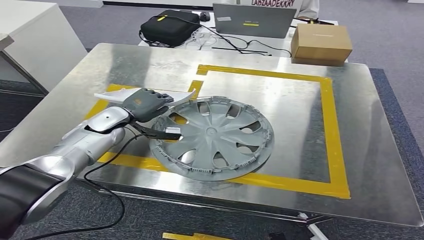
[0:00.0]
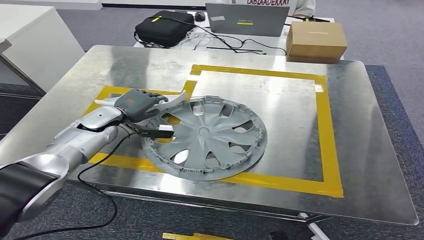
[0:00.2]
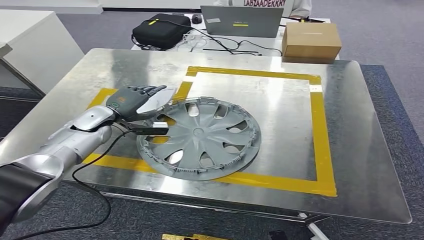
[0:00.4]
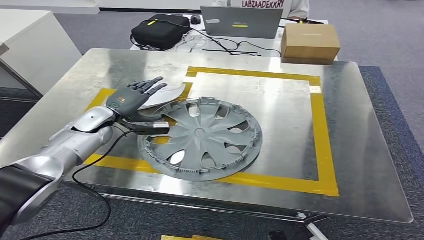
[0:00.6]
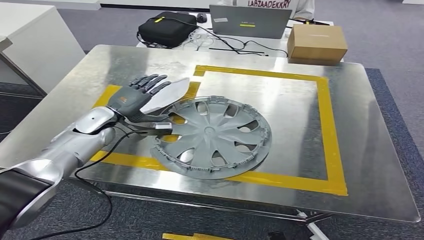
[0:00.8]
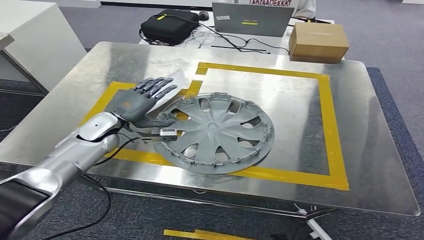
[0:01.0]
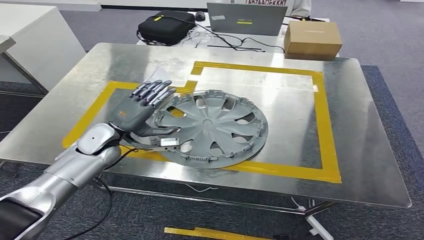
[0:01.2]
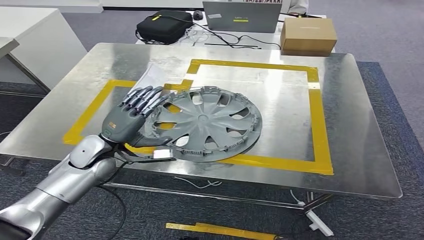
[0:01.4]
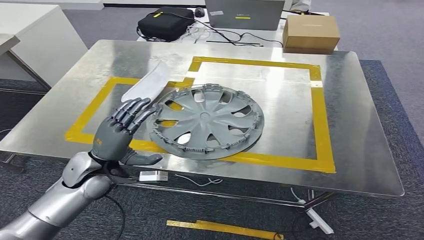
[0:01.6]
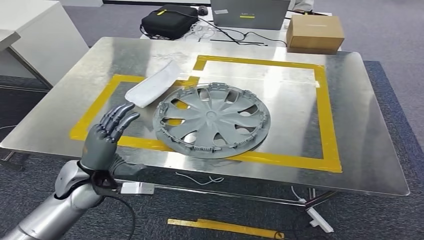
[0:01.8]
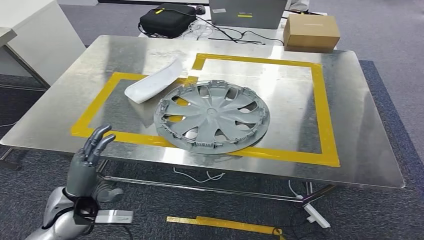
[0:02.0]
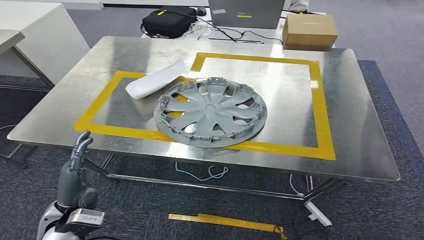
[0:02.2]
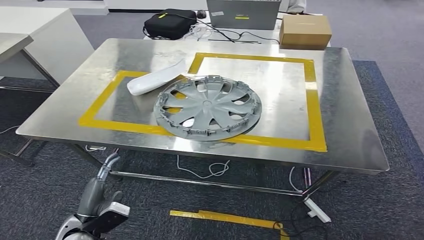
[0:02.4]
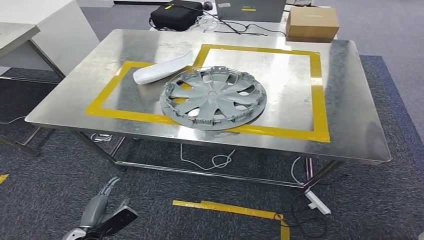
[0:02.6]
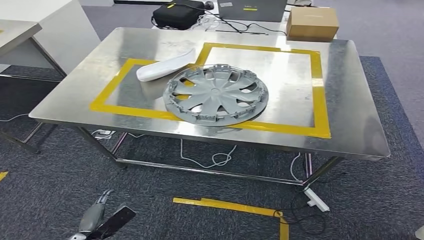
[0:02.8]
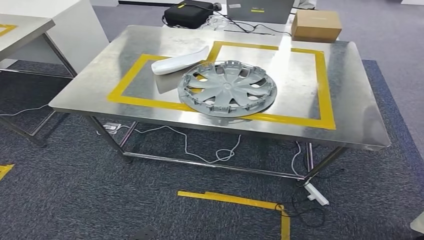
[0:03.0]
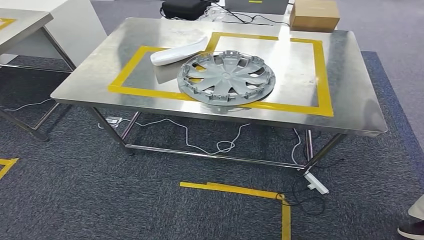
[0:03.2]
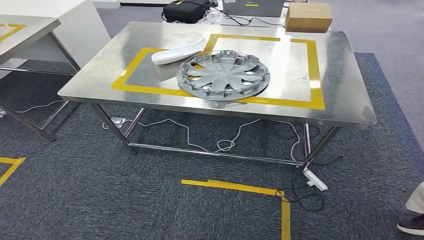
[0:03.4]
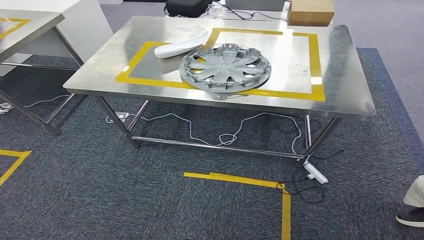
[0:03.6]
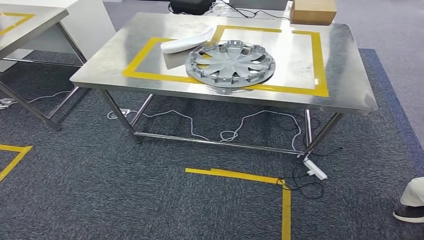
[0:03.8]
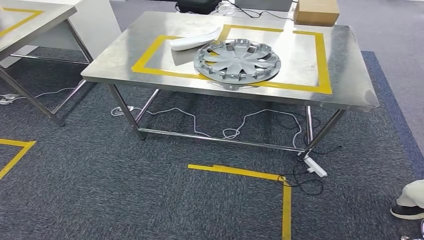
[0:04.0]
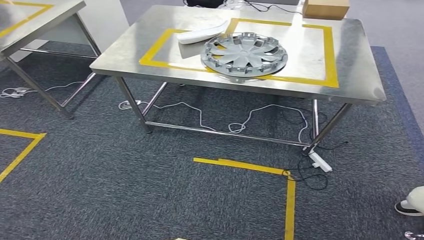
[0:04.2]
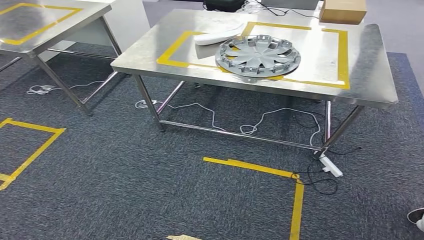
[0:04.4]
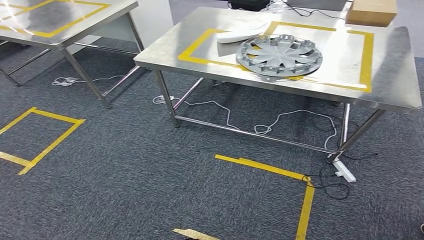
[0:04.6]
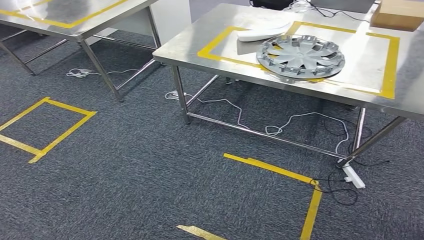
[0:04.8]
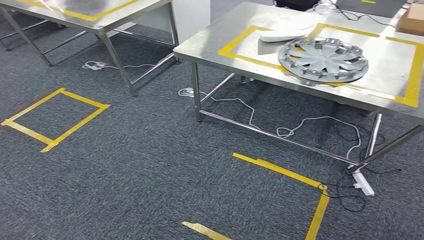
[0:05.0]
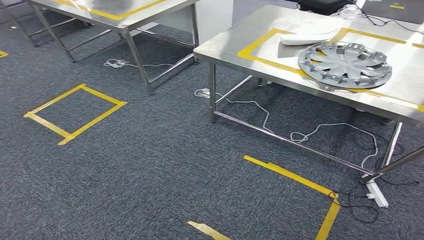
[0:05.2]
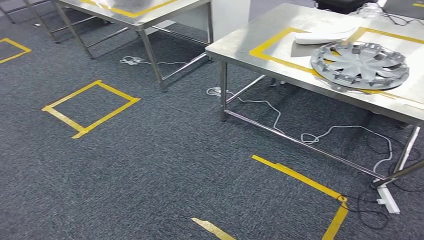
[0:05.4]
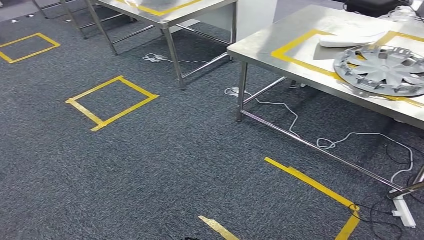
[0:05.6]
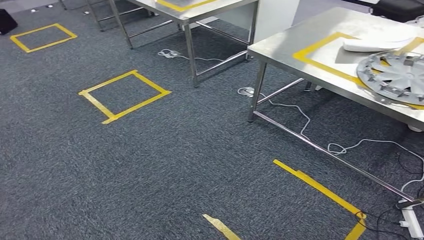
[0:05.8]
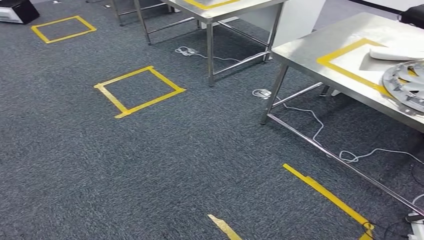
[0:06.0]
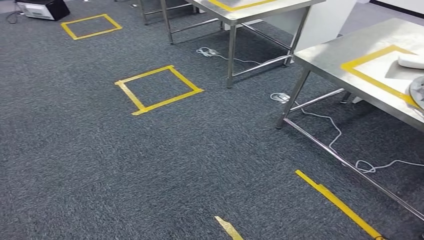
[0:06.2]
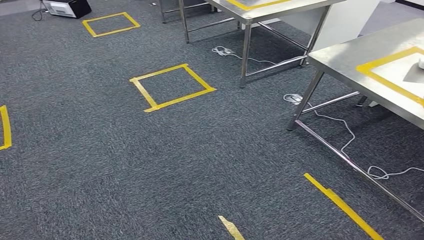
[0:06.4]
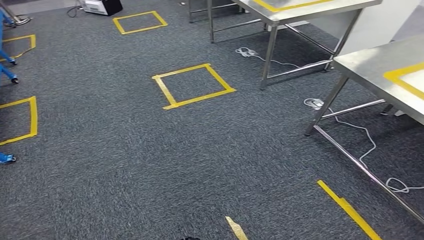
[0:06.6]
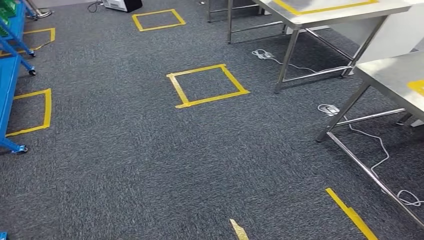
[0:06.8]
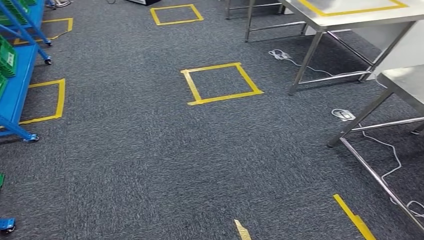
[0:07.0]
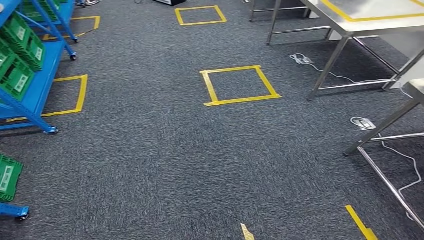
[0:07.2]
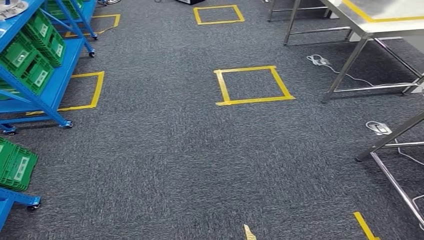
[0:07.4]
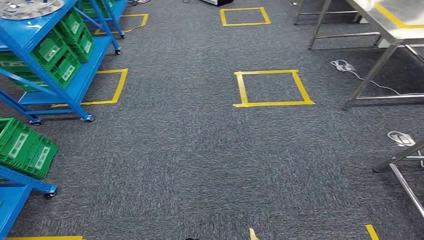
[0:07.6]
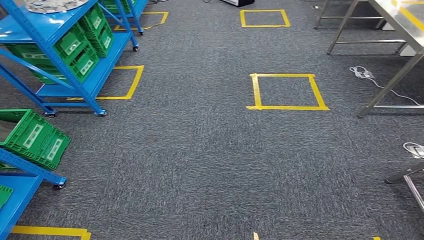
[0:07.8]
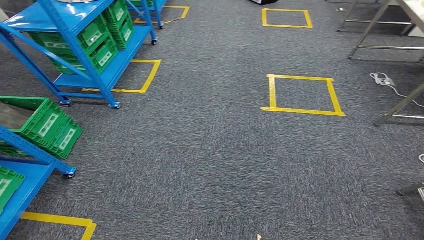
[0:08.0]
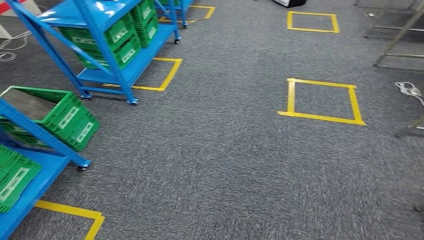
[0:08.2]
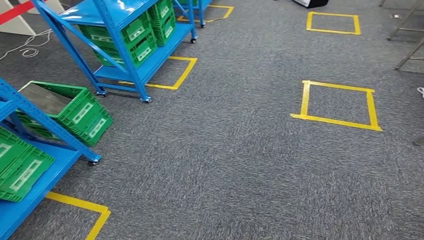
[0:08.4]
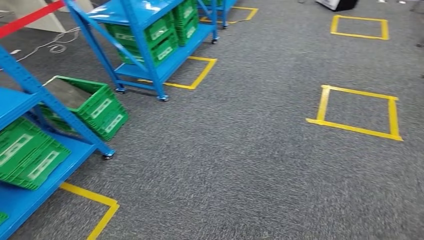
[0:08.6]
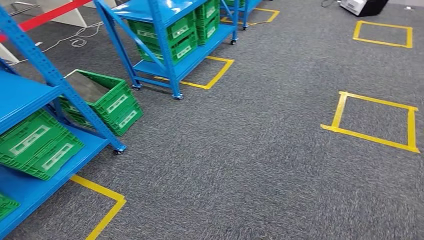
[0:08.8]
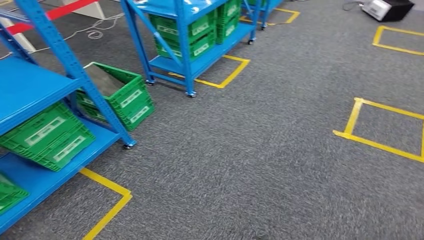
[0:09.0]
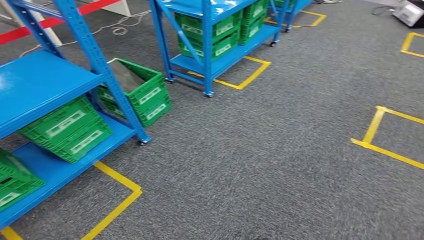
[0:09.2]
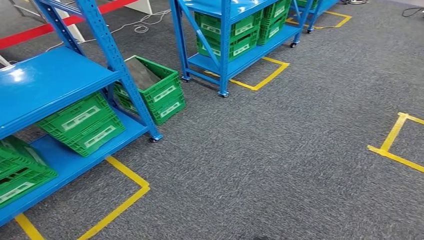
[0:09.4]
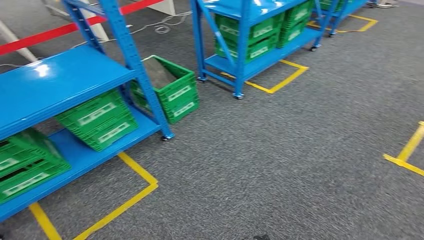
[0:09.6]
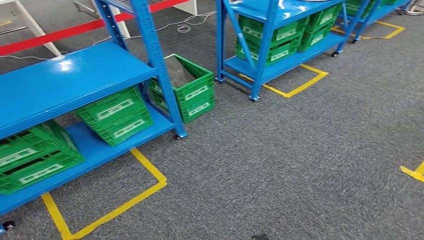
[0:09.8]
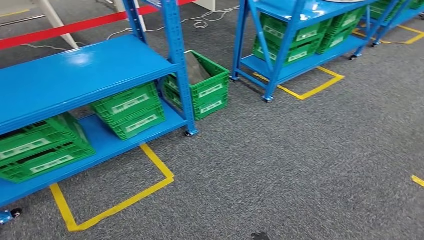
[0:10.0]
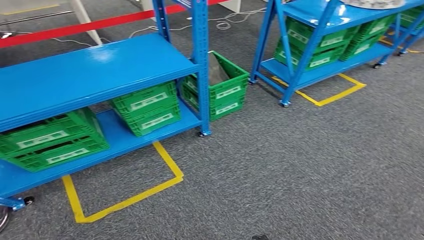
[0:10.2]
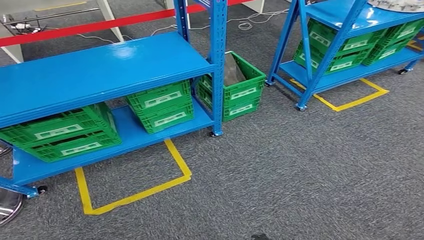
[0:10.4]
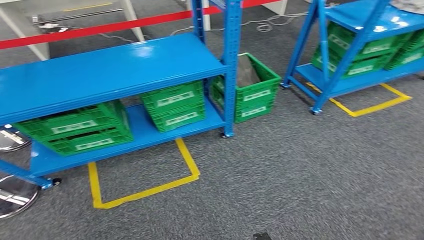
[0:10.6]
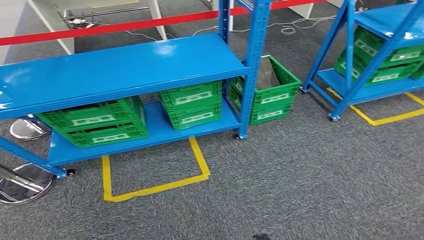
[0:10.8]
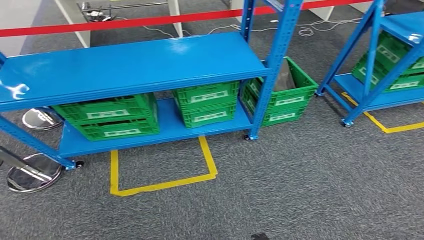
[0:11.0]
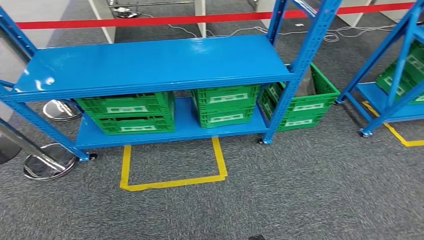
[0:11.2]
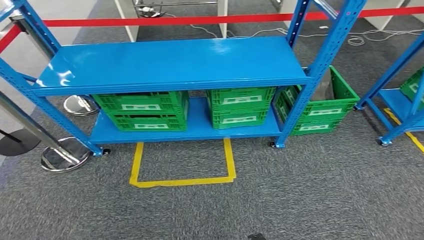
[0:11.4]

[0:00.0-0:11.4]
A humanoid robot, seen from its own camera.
Step, 0:01.8 to 0:11.4: Return to the initial position at the workbench.
